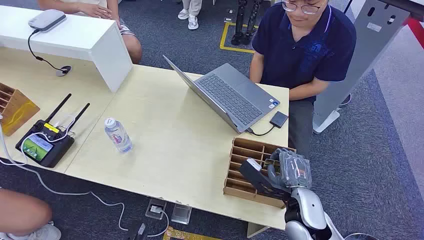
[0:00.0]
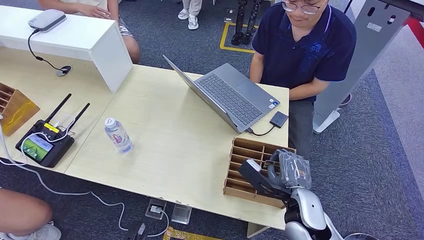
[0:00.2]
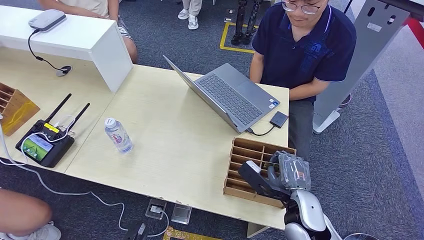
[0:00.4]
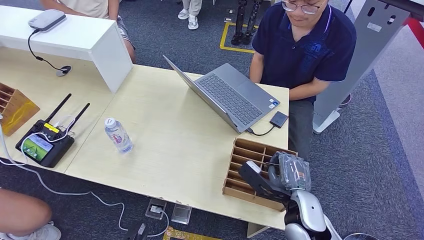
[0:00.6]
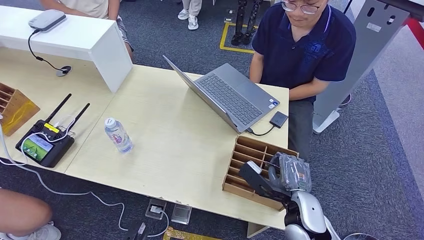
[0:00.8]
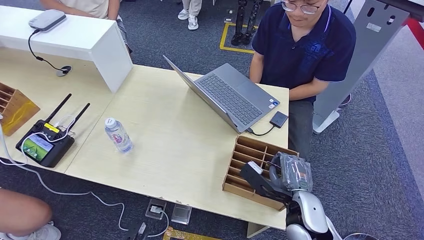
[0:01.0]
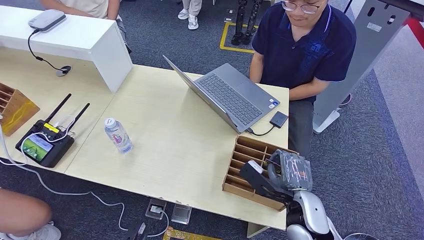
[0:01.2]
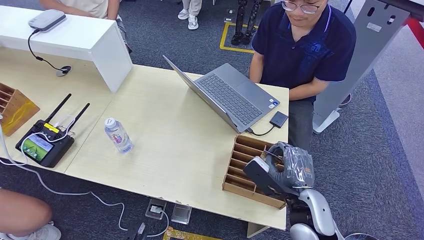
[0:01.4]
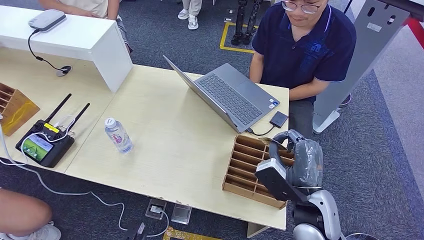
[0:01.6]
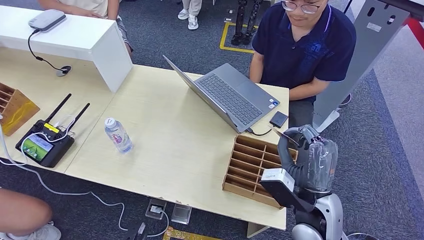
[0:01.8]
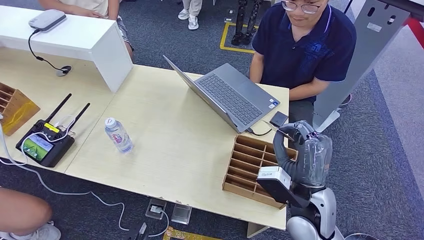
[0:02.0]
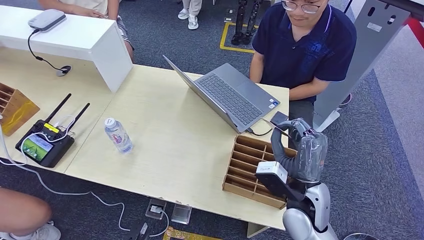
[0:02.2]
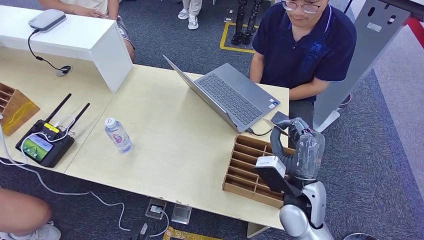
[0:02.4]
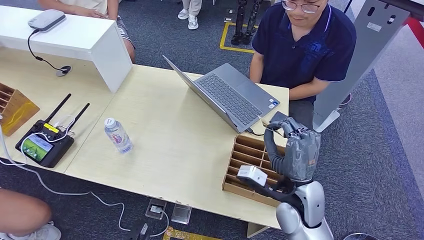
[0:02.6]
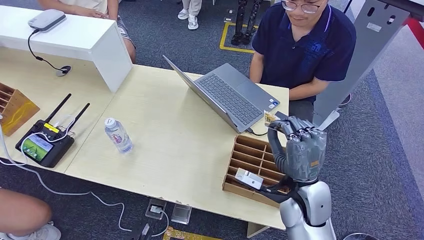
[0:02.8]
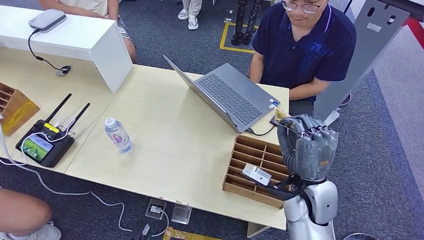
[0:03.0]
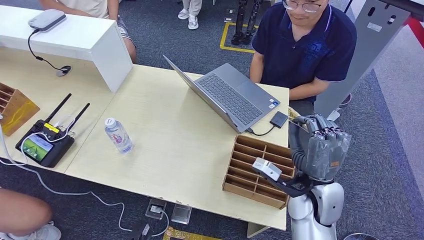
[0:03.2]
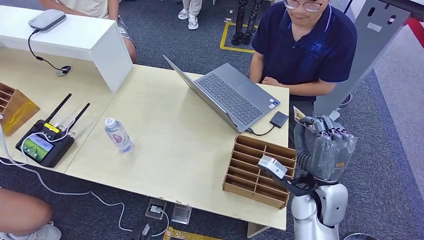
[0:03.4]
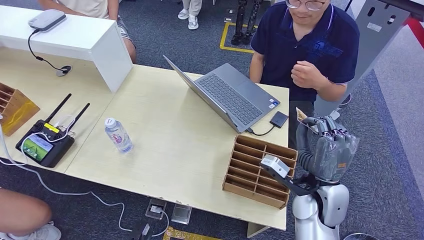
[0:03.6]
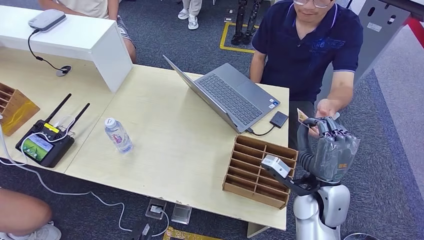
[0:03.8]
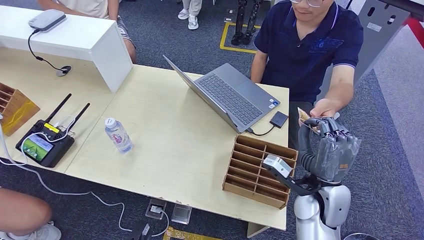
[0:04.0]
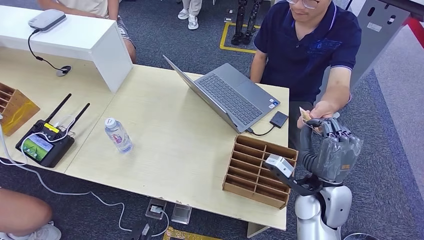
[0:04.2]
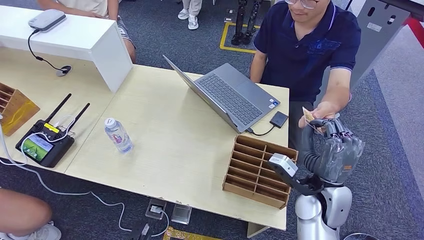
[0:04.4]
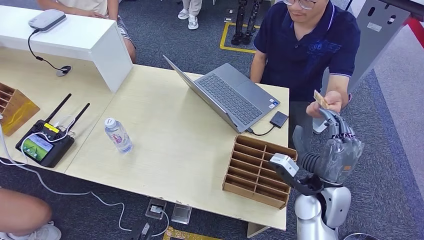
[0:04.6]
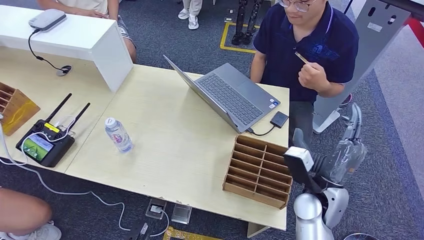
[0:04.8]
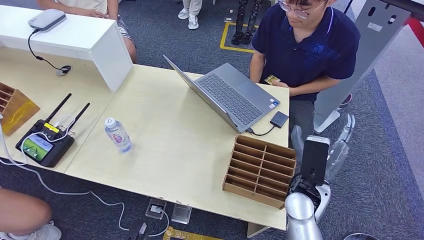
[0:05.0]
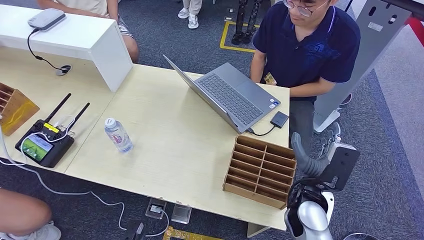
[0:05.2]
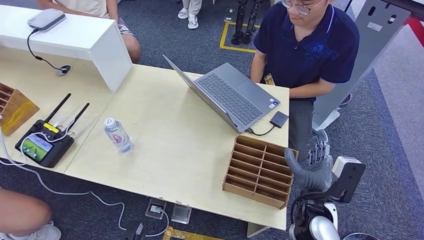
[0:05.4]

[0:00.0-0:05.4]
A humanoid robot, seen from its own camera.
Step, 0:00.0 to 0:01.8: Pick up the room card from the card holder.
Step, 0:02.2 to 0:05.4: Hand the room card to the target.
0:01.4 to 0:02.8: The right hand shifts by roughly 5 cm.
0:02.8 to 0:04.0: The hands move only a little.
0:04.0 to 0:05.4: The right hand shifts by some 5 cm.

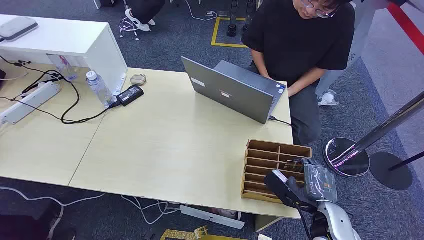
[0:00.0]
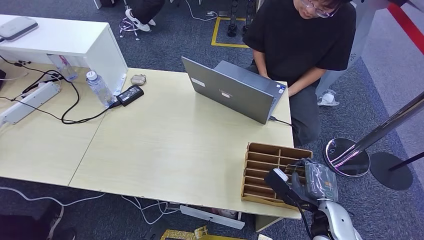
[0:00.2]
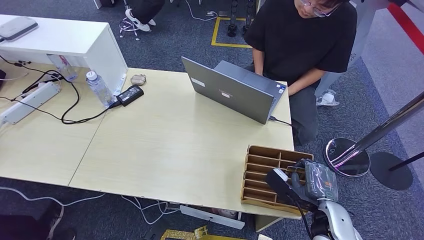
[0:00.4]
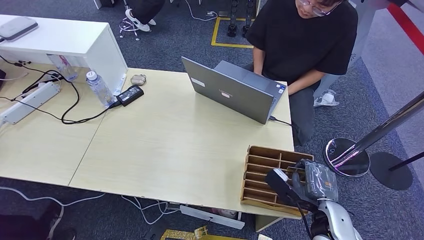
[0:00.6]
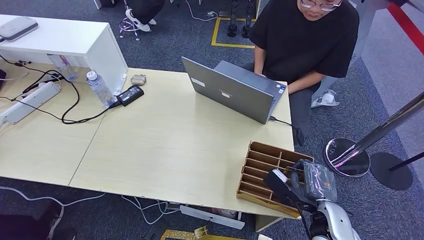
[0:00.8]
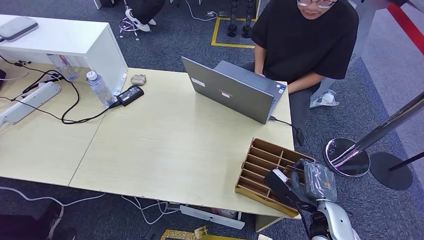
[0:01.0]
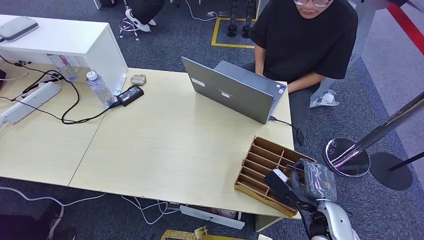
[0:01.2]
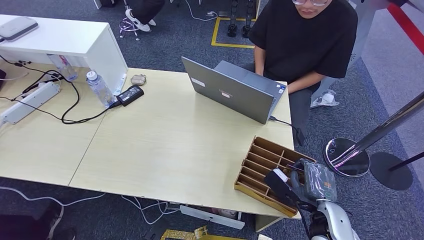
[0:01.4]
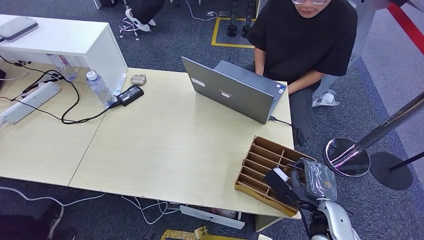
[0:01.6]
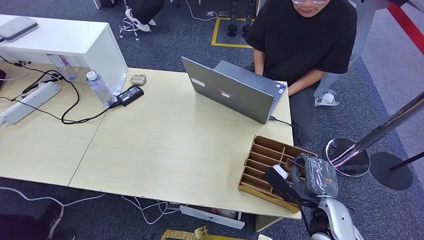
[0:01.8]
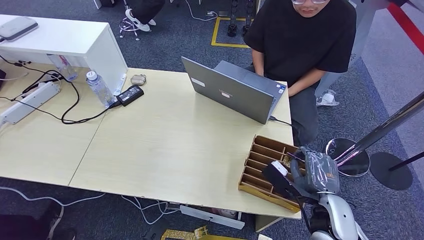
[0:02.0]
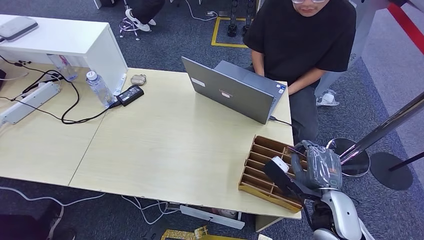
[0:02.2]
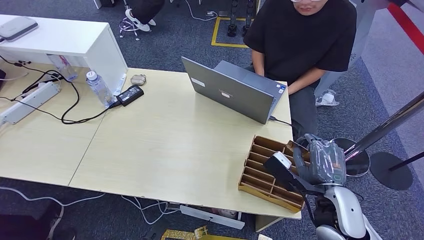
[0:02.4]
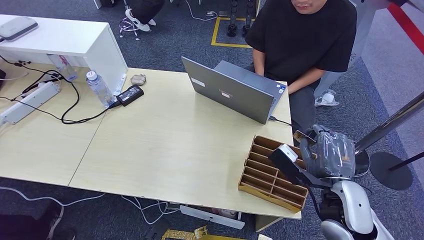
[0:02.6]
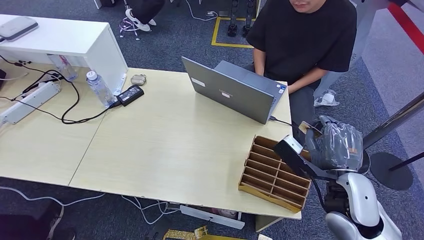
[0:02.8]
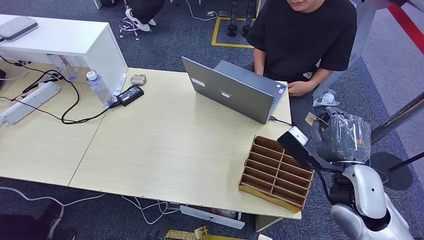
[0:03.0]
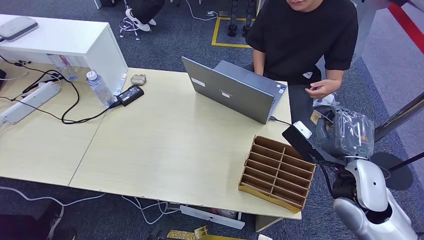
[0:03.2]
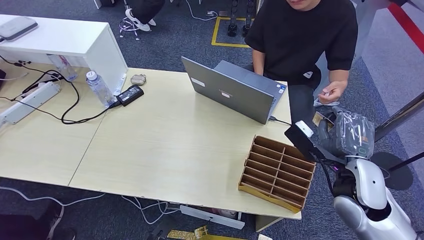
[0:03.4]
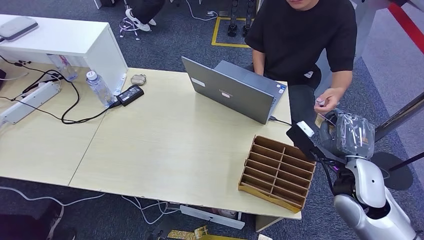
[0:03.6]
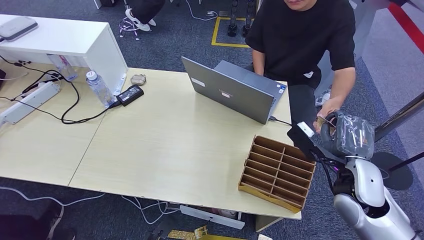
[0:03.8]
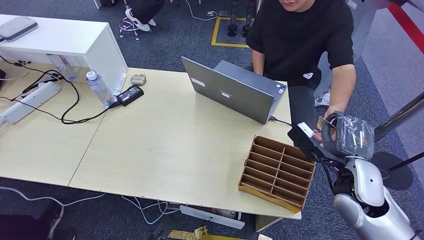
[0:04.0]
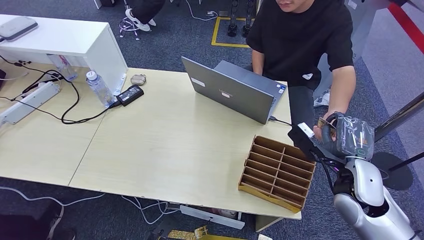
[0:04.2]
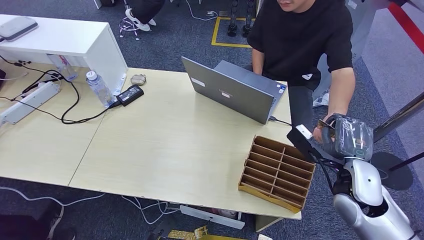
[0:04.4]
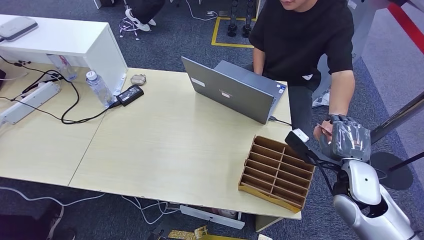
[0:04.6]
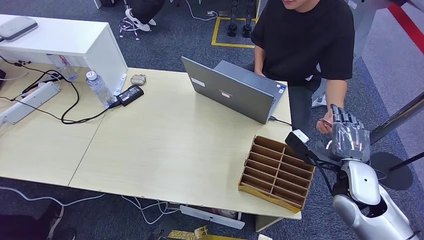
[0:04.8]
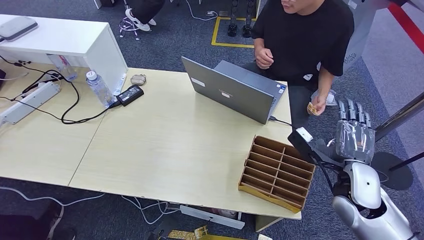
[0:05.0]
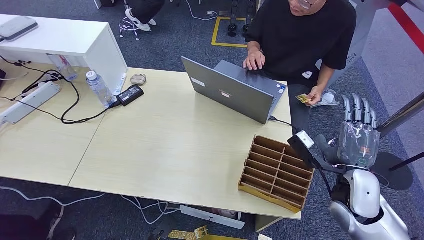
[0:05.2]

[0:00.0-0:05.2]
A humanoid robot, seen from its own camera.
Step, 0:00.0 to 0:03.0: Pick up the room card from the card holder.
Step, 0:03.2 to 0:05.2: Hand the room card to the target.
0:01.8 to 0:03.4: The right hand travels upward and forward by roughly 10 cm.
0:03.4 to 0:05.2: There are only small adjustments of the hands.
